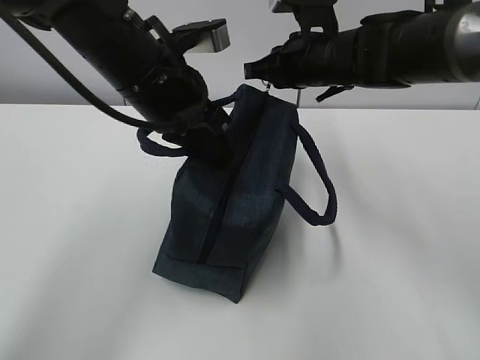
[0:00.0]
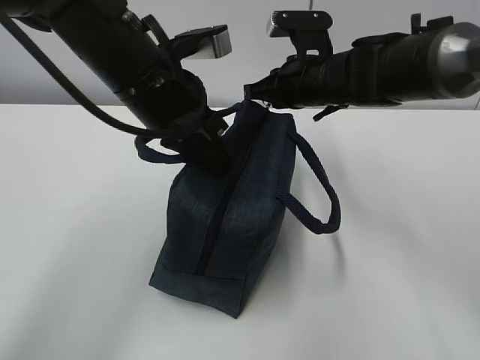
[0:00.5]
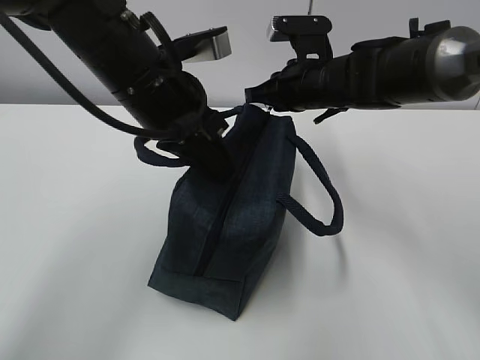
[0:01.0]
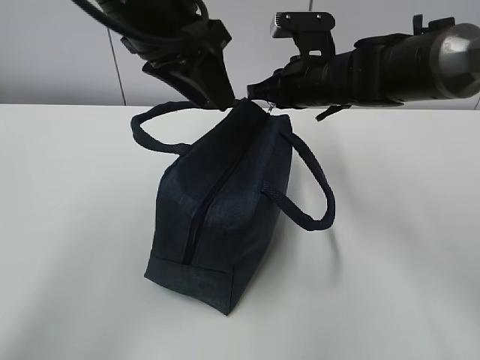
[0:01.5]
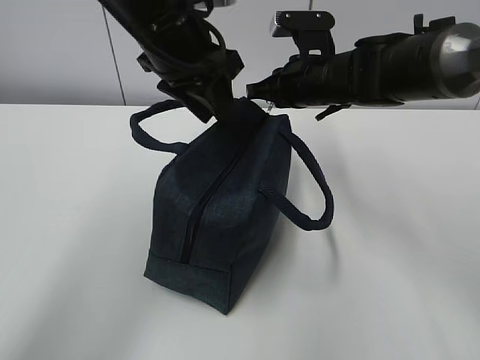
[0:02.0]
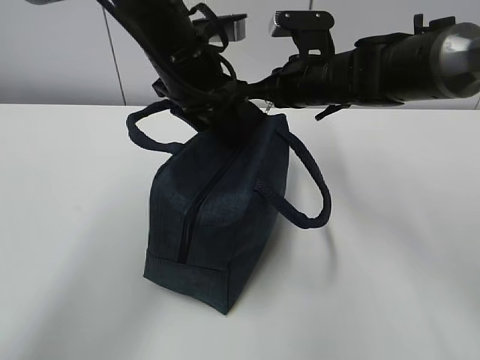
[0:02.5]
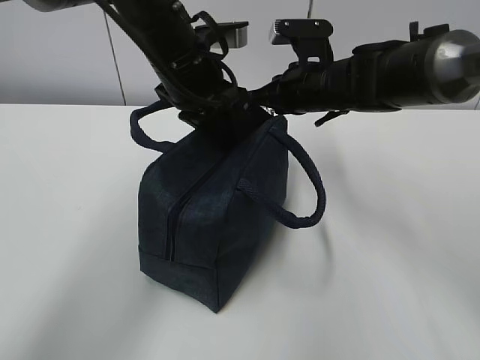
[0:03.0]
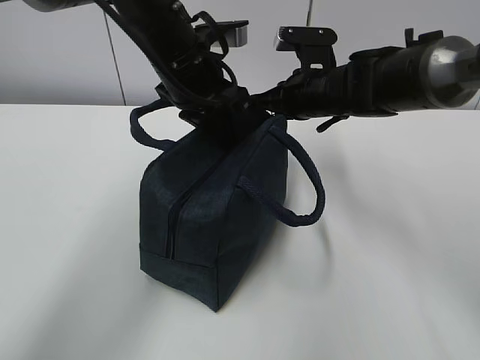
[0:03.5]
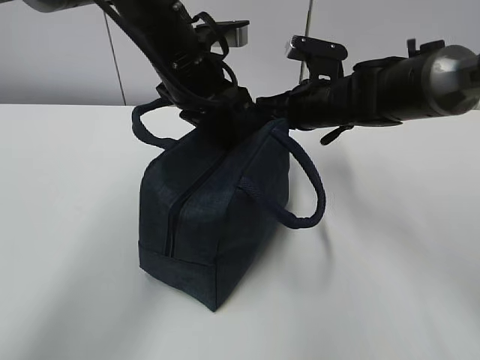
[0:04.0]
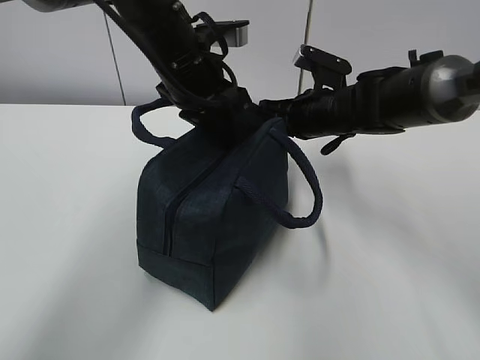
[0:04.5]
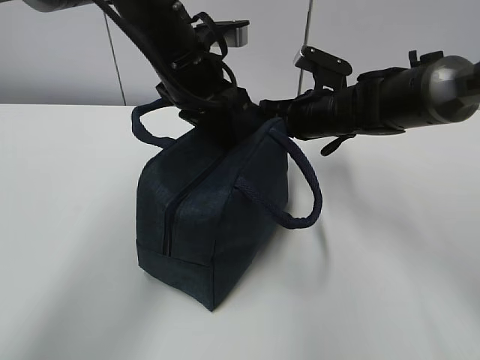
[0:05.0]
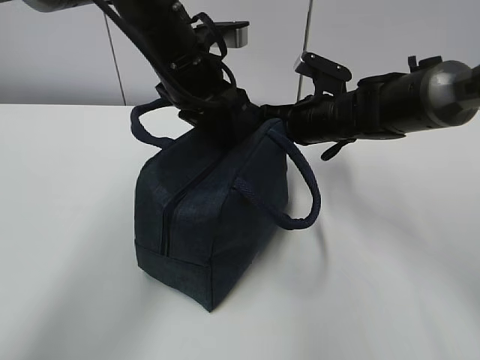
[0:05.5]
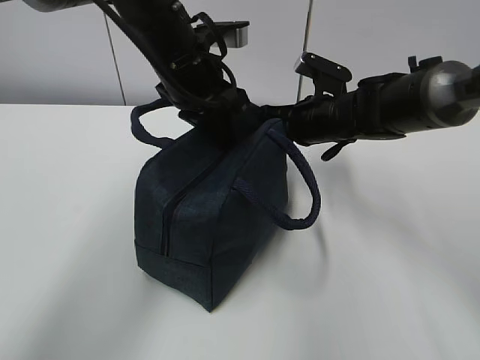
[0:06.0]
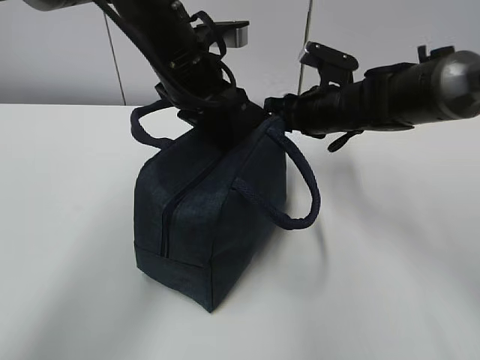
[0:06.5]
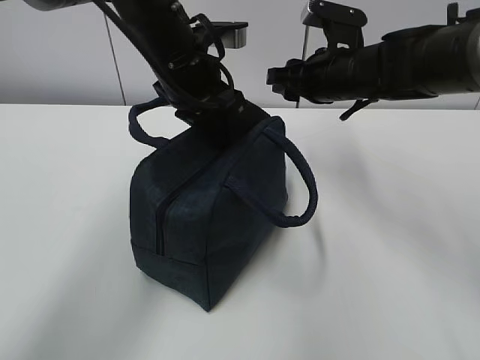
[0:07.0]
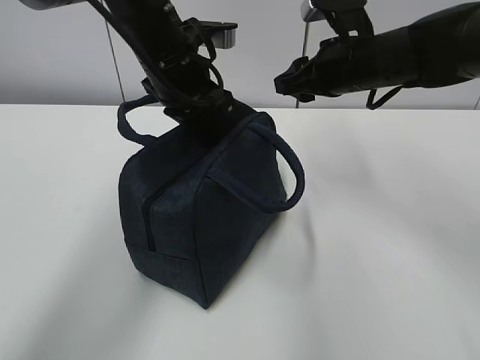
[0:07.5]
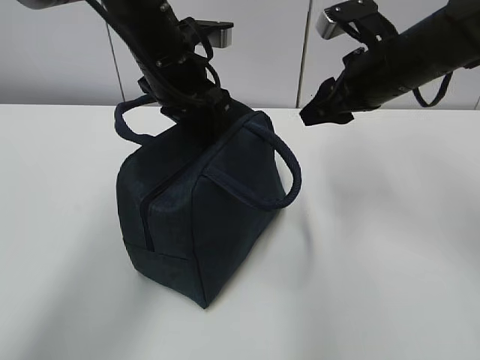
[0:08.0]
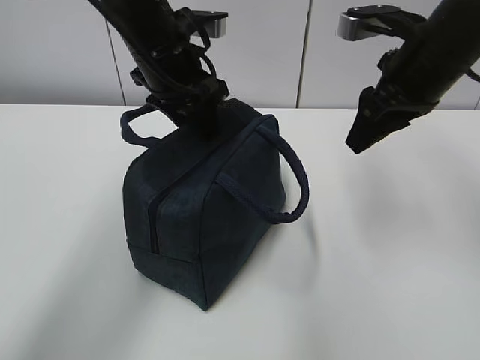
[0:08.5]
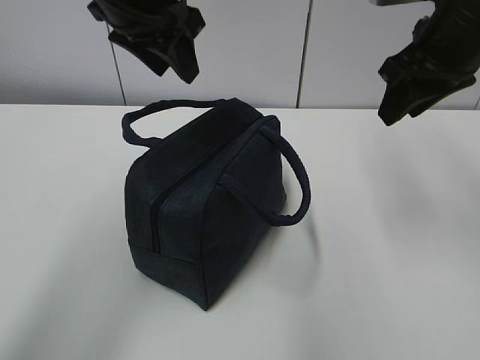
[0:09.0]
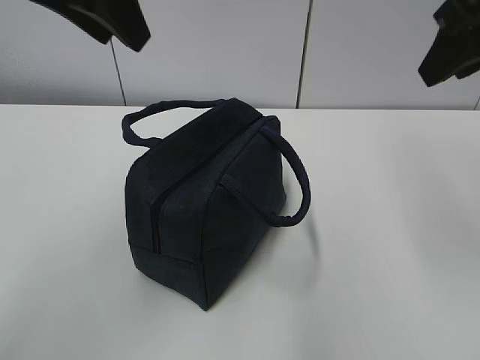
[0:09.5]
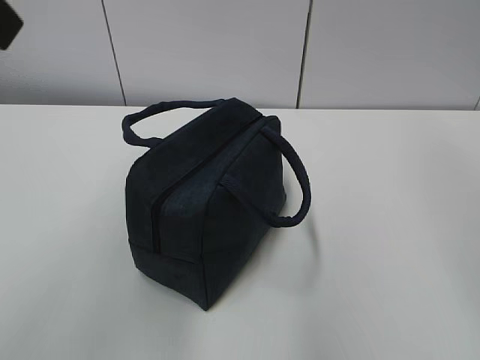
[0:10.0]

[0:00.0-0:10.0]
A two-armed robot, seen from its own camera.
Step, 0:00.0 to 0:08.5: zip up the zipper to close the bag.
0:00.0 to 0:02.0: The left gripper changes place by roughly 5 cm, and opens.
0:02.0 to 0:04.0: The left gripper moves some 5 cm, and closes up.
0:04.0 to 0:06.0: The grippers make only small movements.
0:06.0 to 0:08.0: The right gripper is displaced upward and backward by approximately 10 cm, and opens up.
0:08.0 to 0:10.0: The right gripper shifts some 25 cm backward and upward; the left gripper heads backward, upward and to the left, covering approximately 30 cm, and opens up.

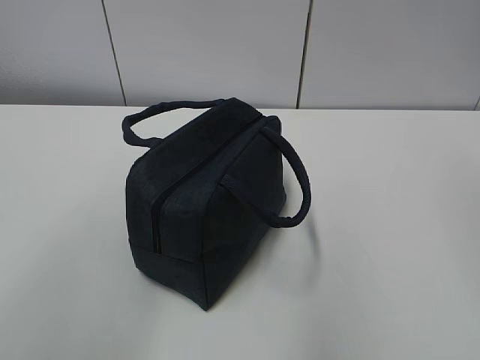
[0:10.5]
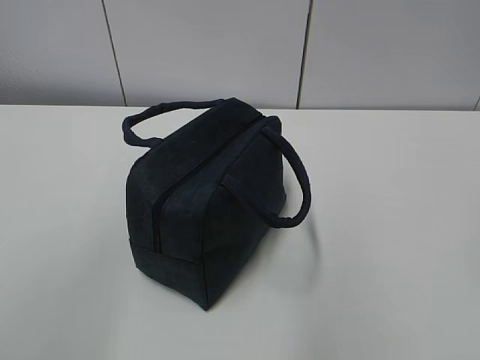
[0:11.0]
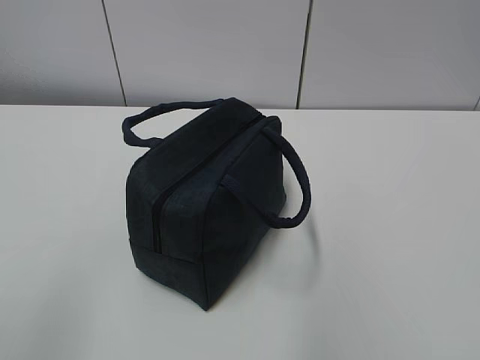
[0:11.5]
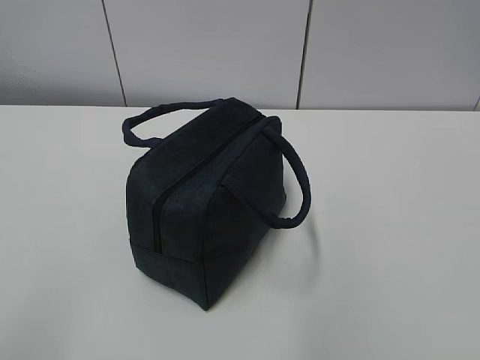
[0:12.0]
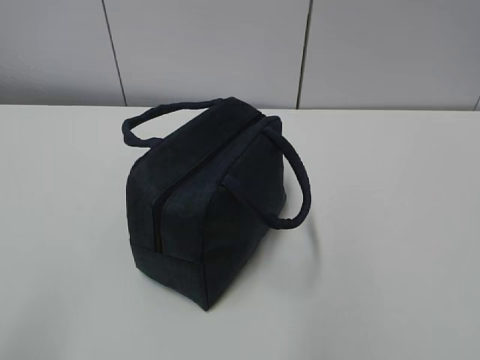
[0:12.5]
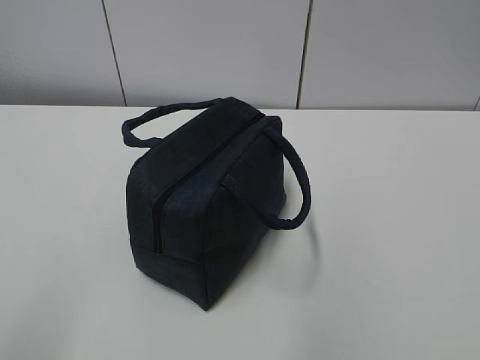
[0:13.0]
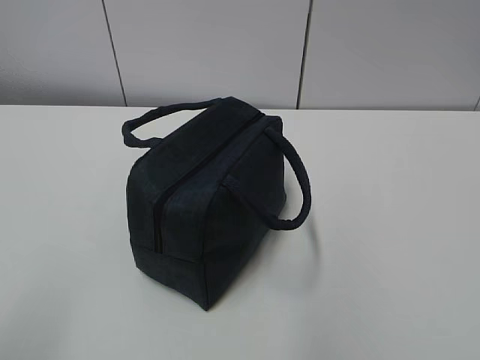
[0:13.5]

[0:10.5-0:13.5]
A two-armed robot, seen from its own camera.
0:10.5 to 0:12.0: The left gripper moves downward, backward and to the left, about 20 cm.

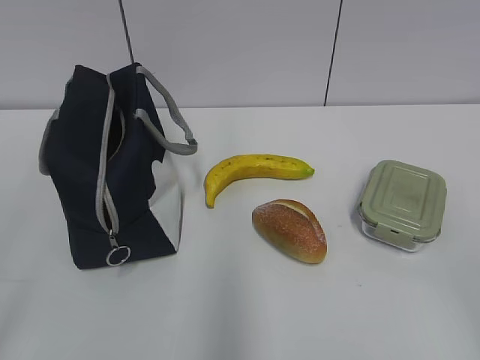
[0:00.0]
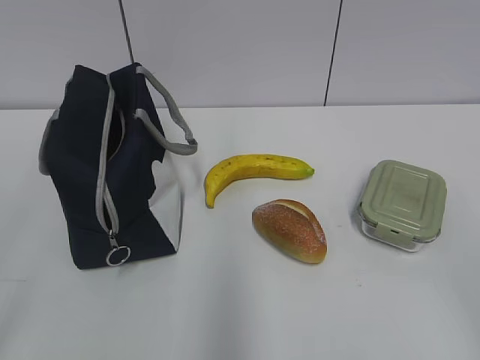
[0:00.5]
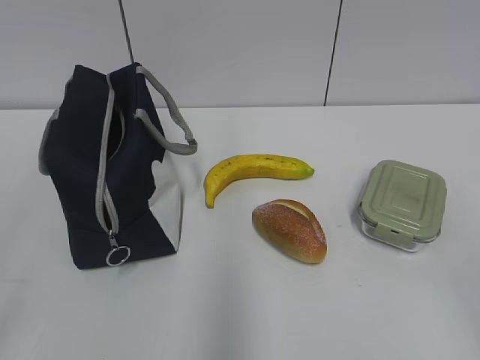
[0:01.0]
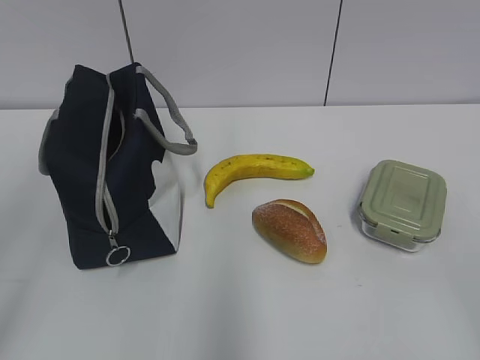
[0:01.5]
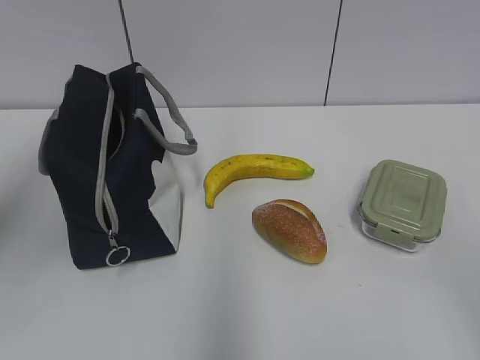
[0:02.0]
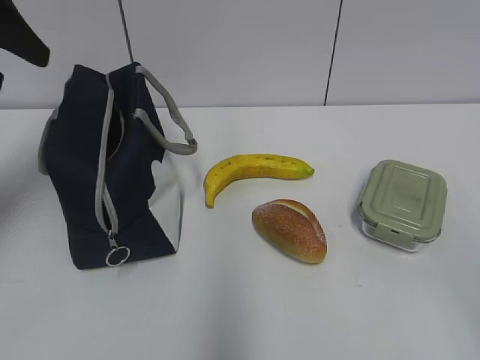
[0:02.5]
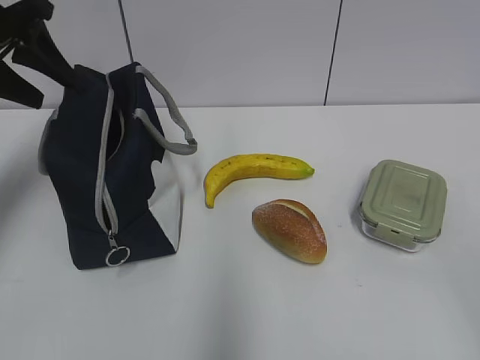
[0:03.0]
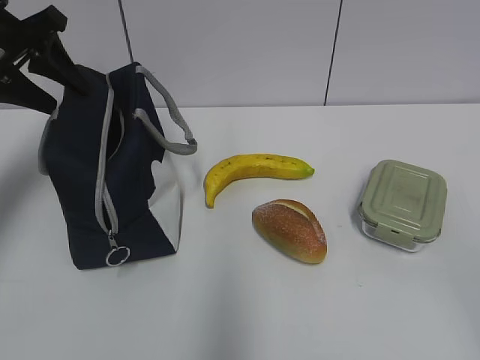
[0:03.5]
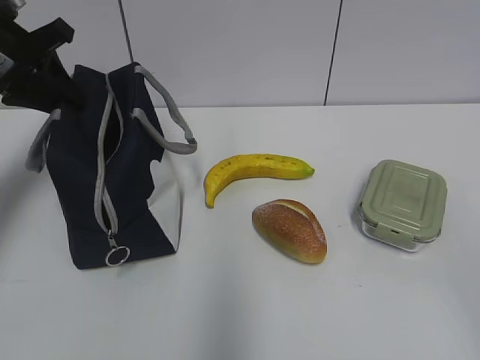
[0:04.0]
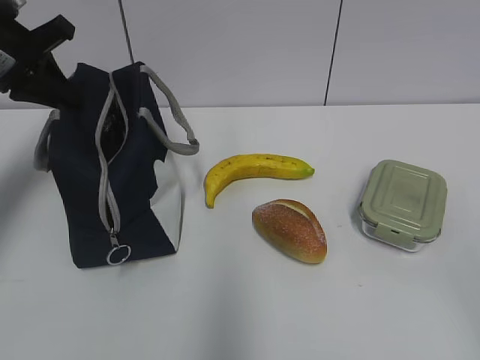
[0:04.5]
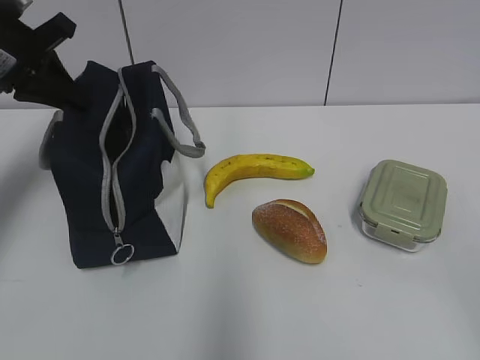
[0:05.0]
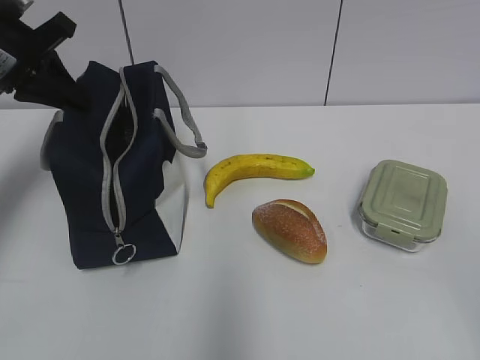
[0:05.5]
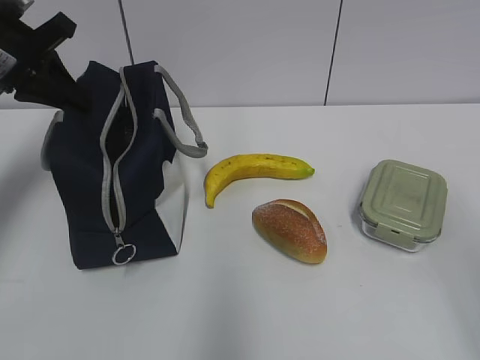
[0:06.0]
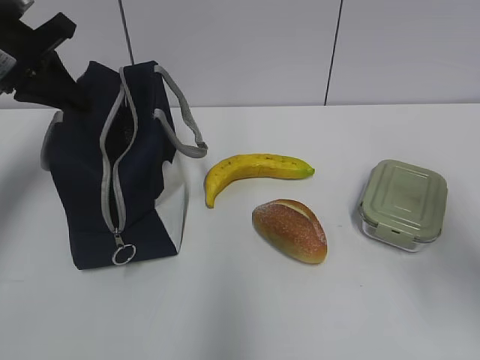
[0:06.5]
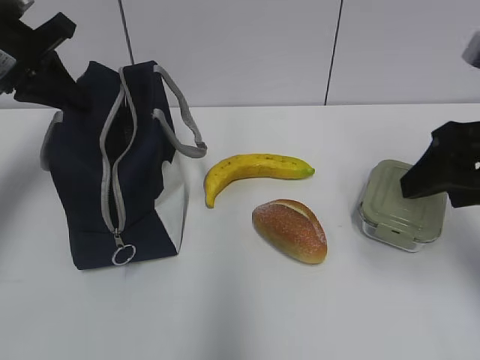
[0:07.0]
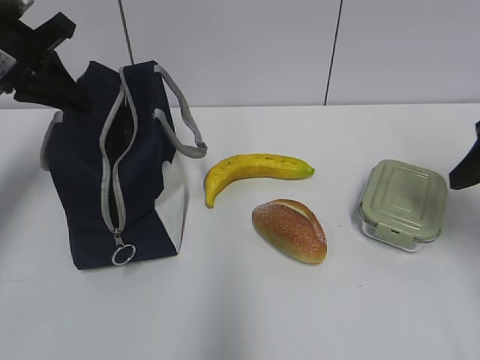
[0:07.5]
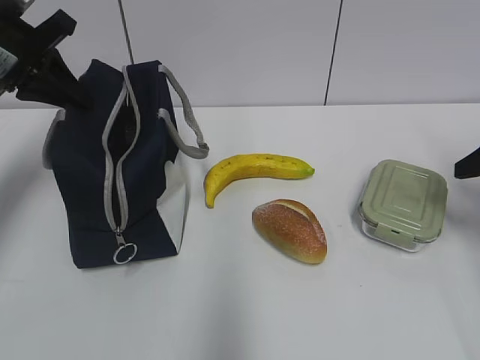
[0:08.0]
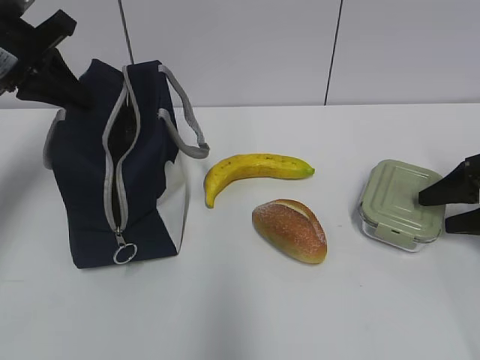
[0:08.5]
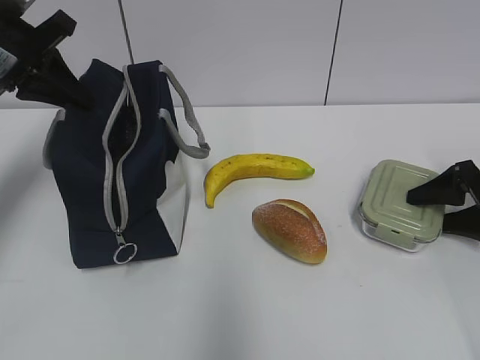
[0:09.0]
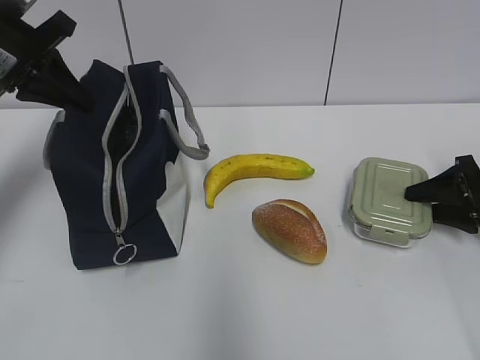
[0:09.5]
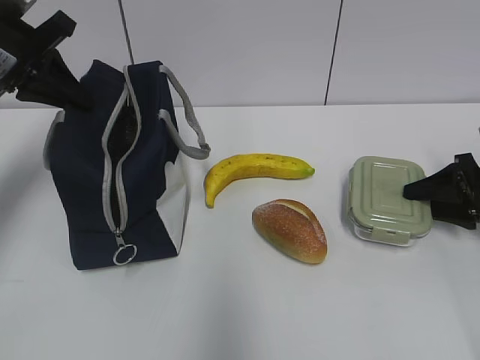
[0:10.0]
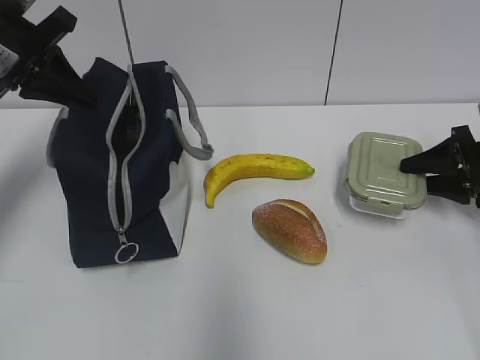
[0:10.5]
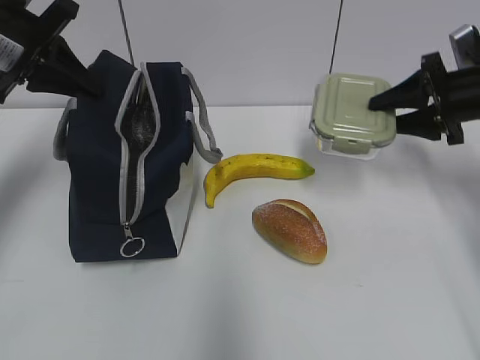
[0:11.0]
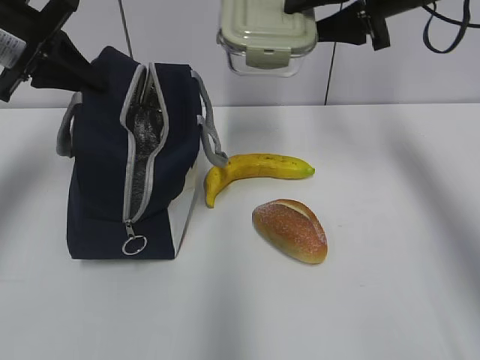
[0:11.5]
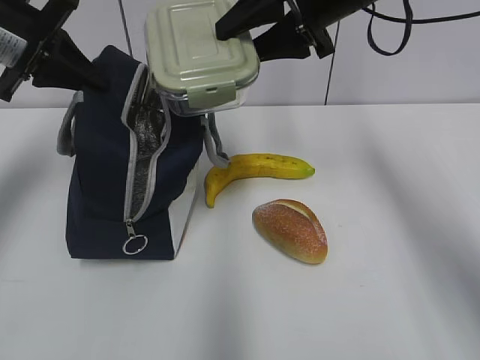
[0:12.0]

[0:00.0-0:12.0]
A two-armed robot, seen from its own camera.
0:02.0 to 0:04.0: The left gripper moves forward and downward, roughly 25 cm, and closes.
0:04.0 to 0:06.0: The right gripper shifts some 5 cm forward.
0:06.0 to 0:08.0: The right gripper is displaced forward by about 25 cm.
0:08.0 to 0:10.0: The right gripper shifts approximately 10 cm downward.
0:10.0 to 0:12.0: The right gripper moves to the left and upward, about 35 cm.

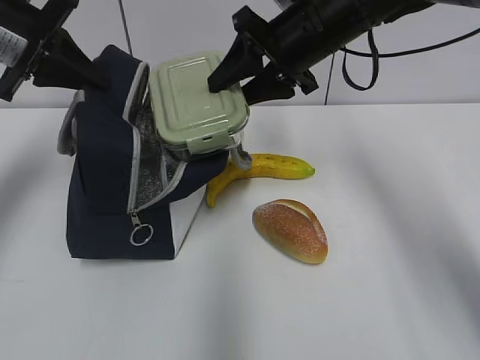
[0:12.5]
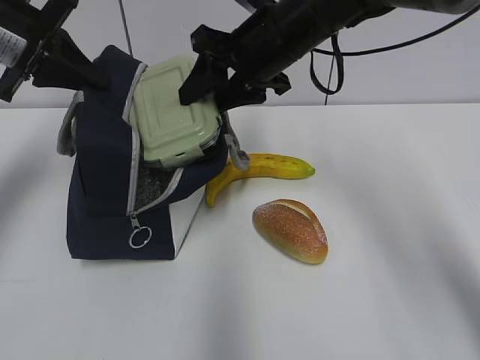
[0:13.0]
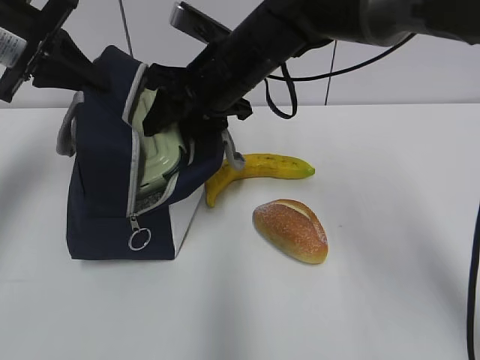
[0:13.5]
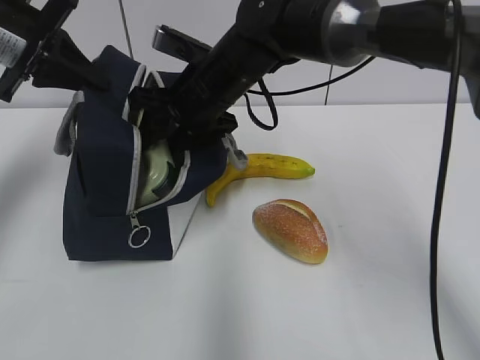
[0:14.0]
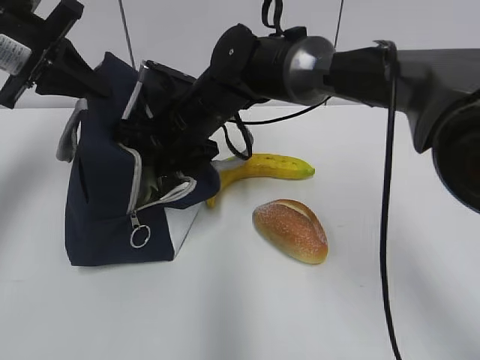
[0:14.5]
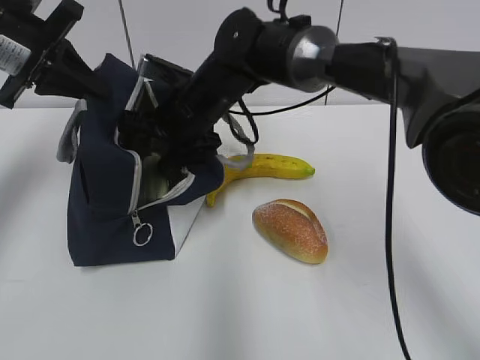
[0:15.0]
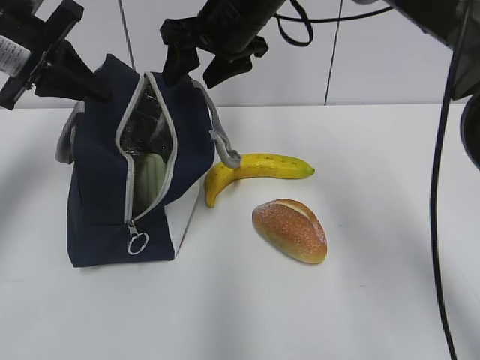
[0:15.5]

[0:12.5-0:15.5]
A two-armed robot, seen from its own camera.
0:12.5 to 0:14.0: The right gripper goes approximately 15 cm to the left and downward.
0:14.0 to 0:15.5: The right gripper is displaced upward by approximately 5 cm.
